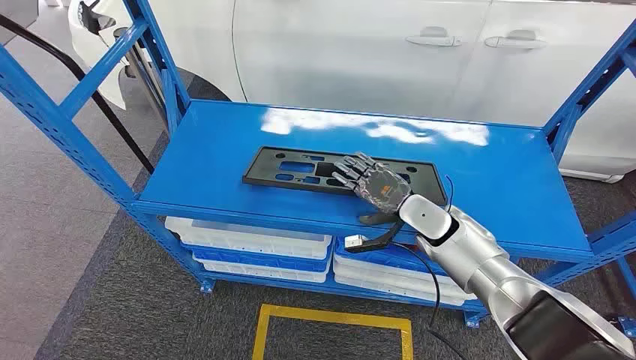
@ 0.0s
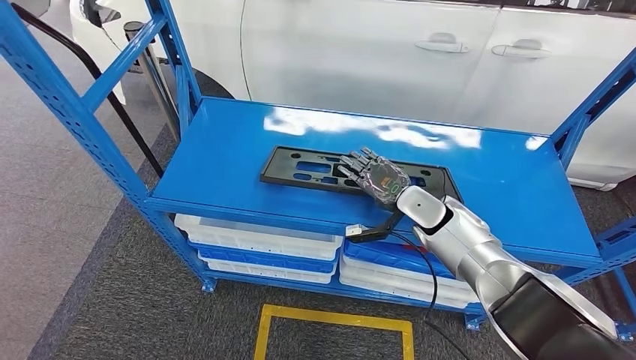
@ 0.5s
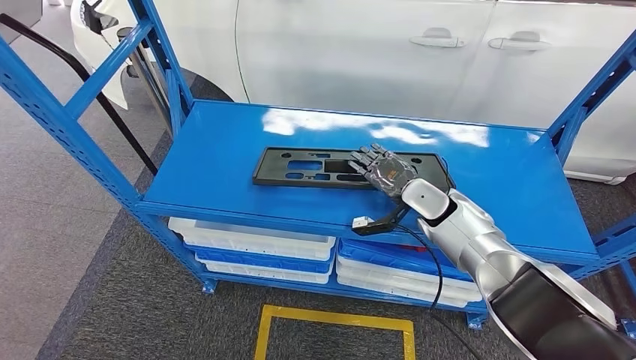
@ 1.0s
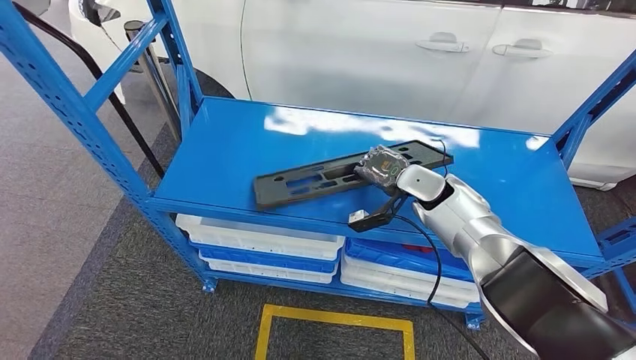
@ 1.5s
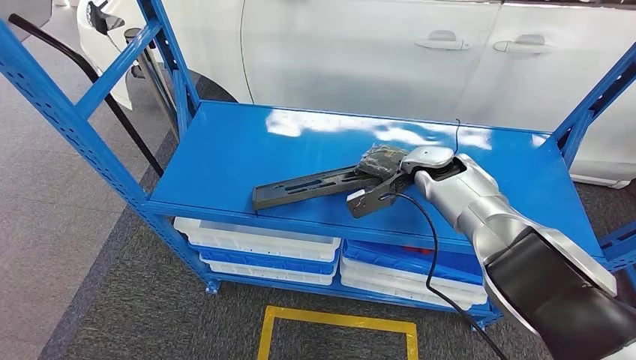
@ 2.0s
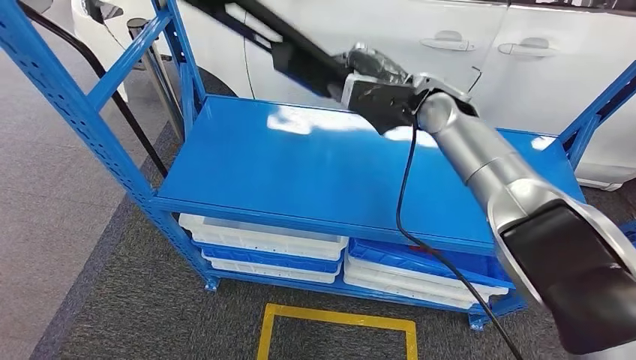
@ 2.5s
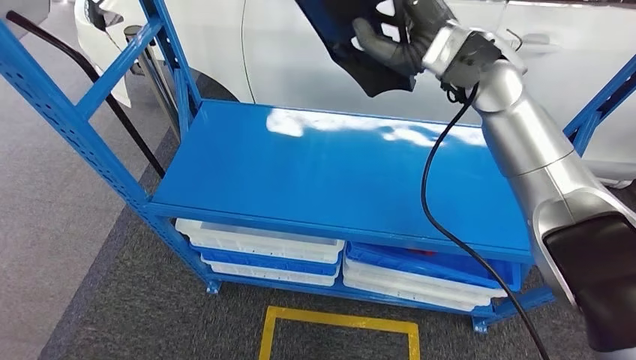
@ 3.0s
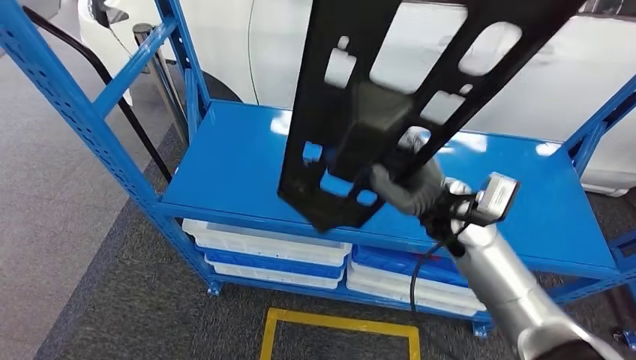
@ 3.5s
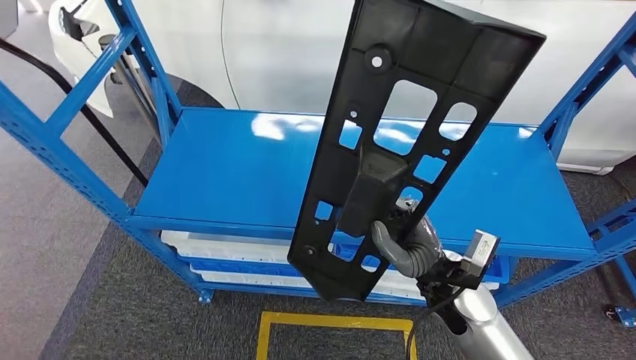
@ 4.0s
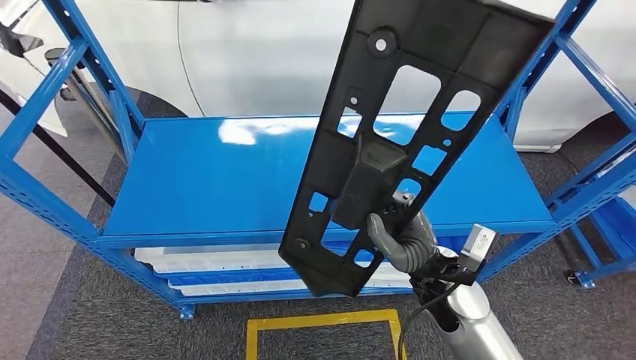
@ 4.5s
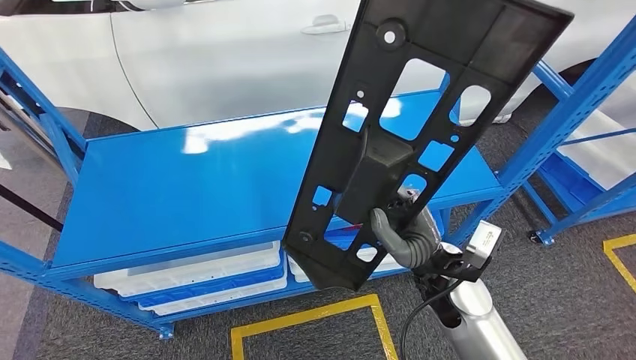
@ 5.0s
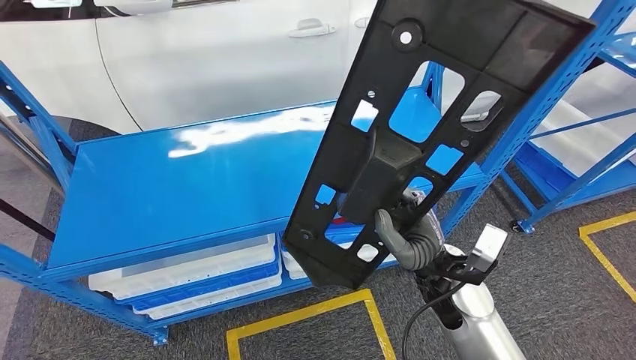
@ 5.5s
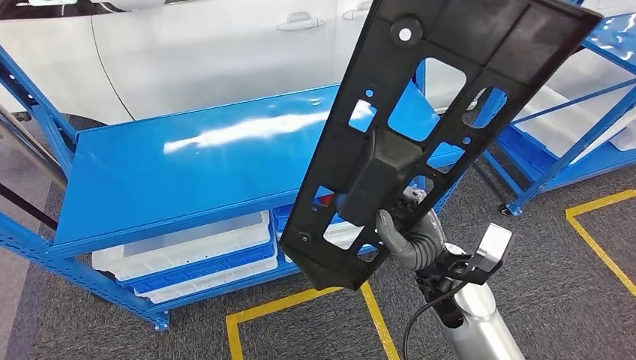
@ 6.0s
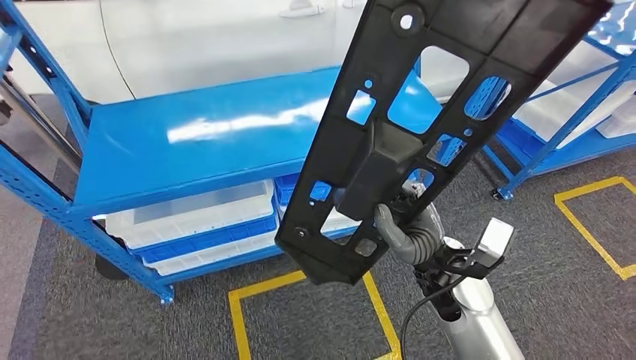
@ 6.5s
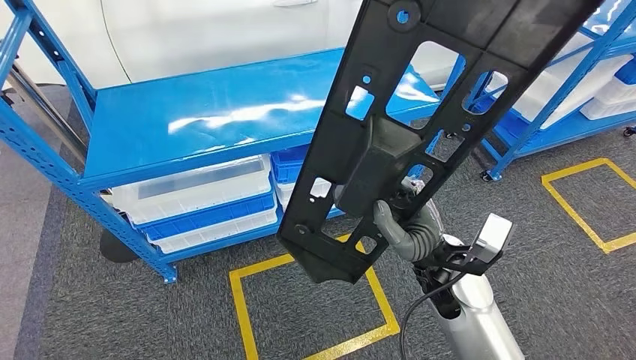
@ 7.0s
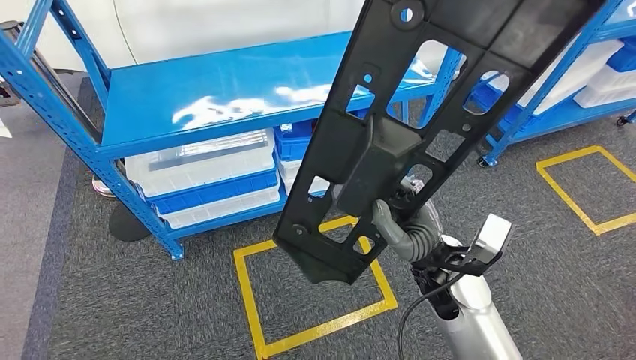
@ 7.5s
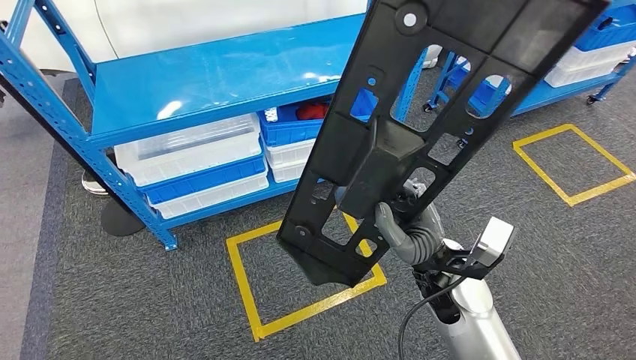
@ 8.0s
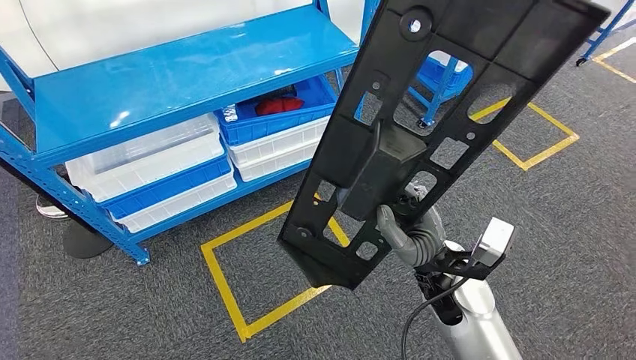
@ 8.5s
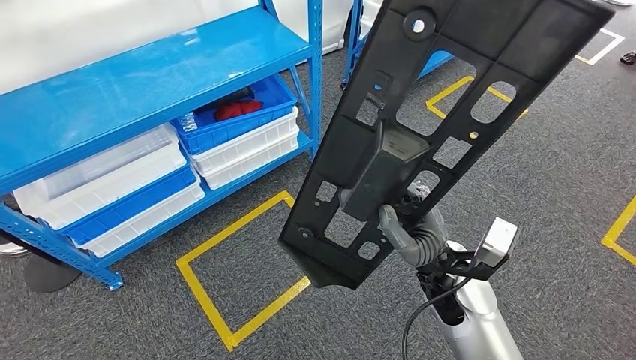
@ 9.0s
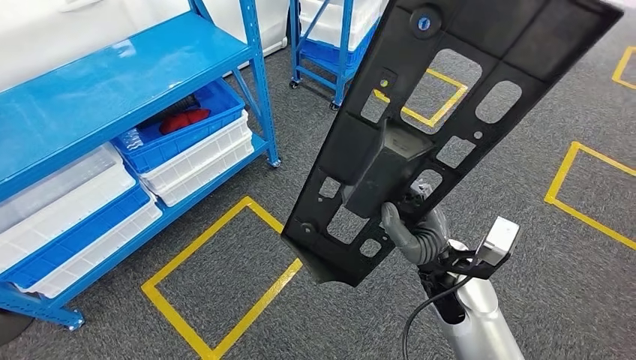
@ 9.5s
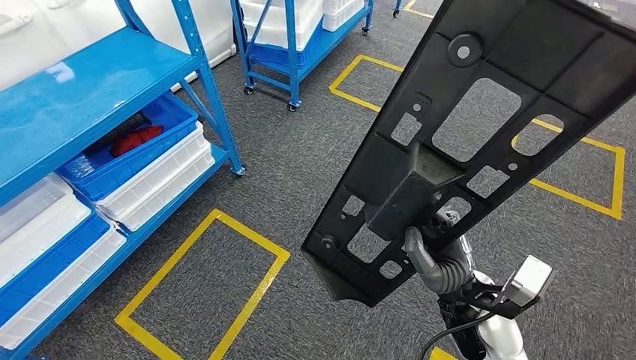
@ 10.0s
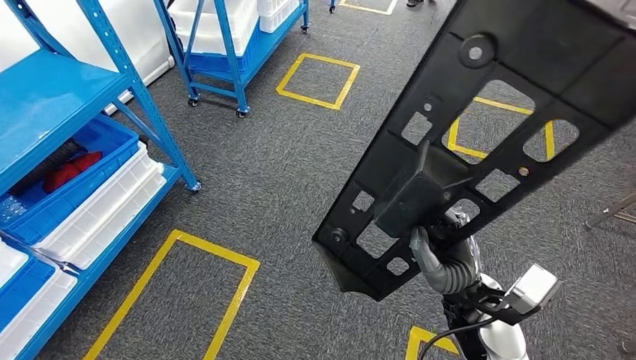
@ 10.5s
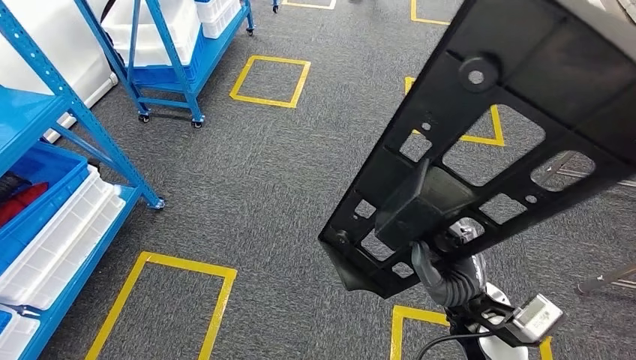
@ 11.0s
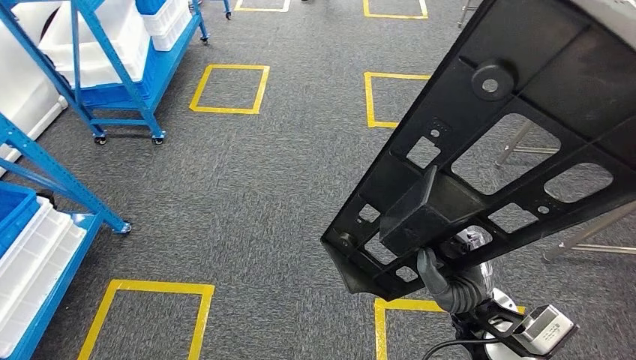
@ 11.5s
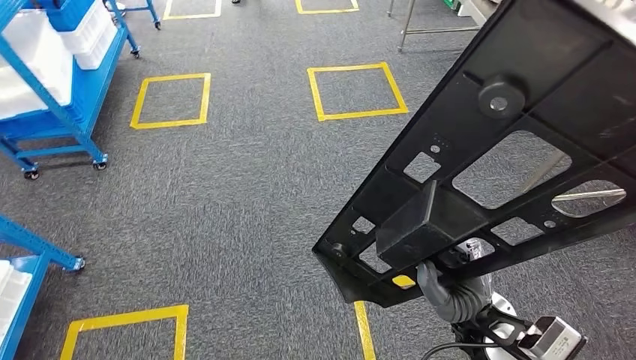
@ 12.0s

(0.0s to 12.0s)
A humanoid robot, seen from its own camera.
Step, 0.0s - 3.0s: Pick up the large material from the shelf.

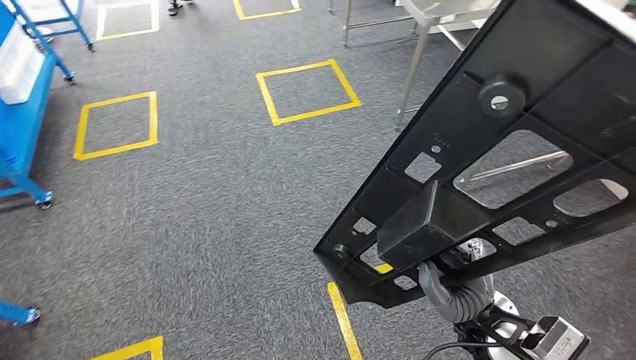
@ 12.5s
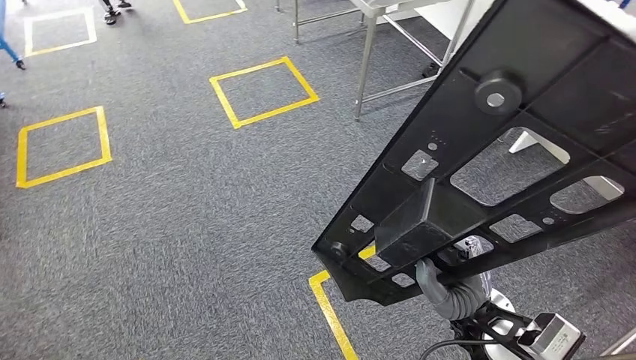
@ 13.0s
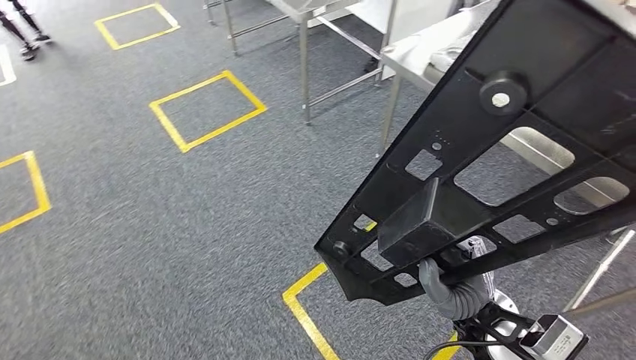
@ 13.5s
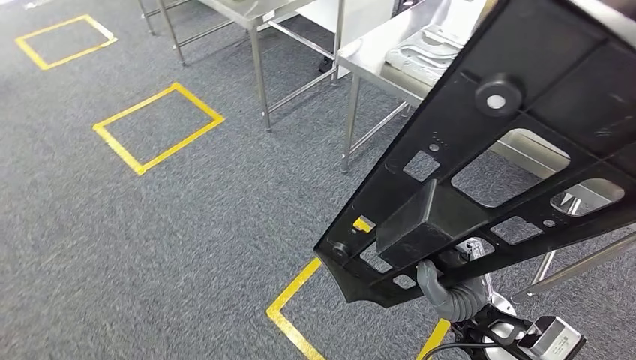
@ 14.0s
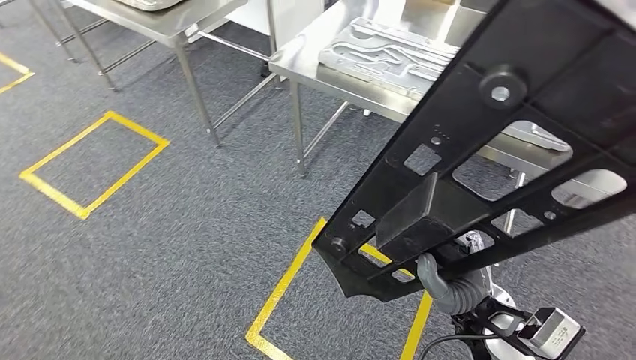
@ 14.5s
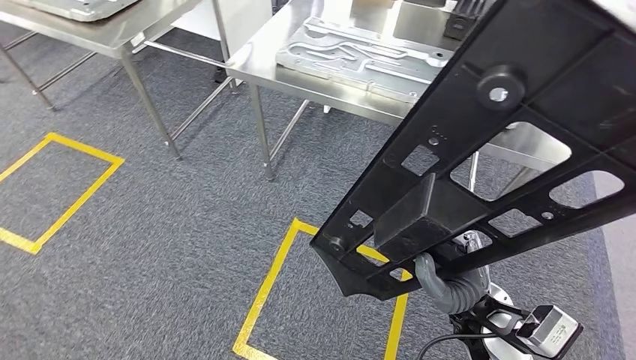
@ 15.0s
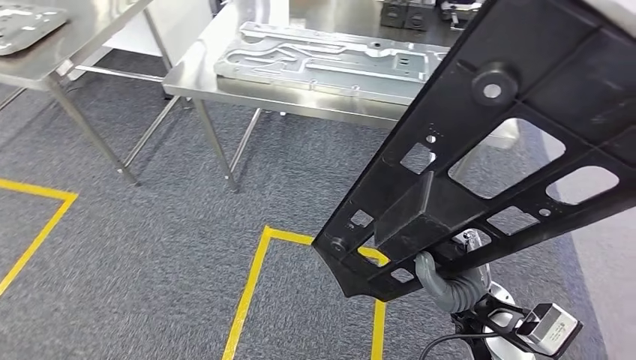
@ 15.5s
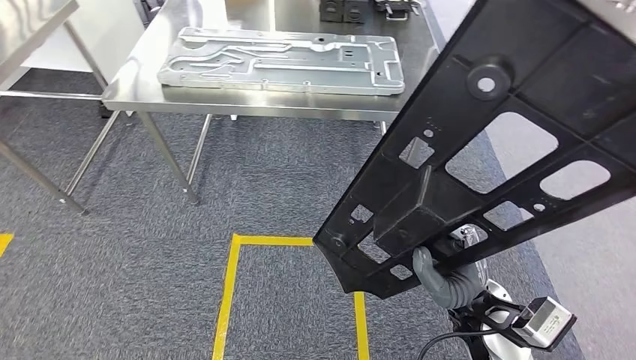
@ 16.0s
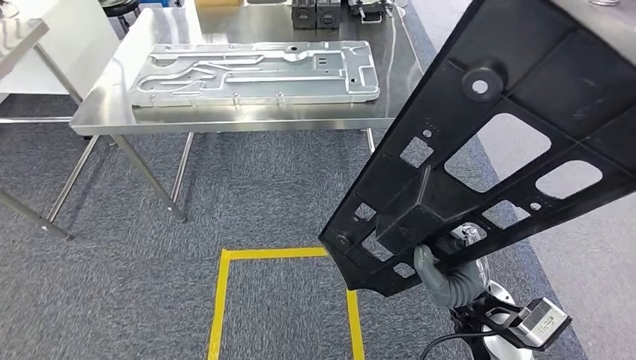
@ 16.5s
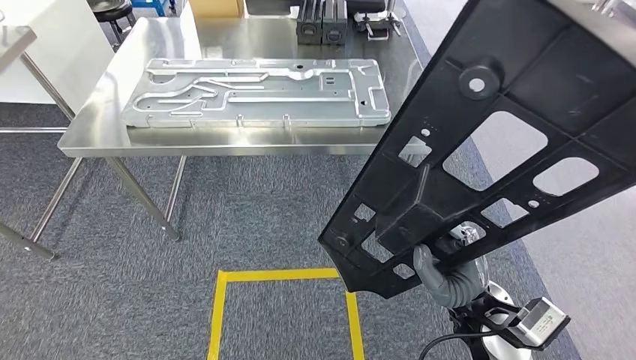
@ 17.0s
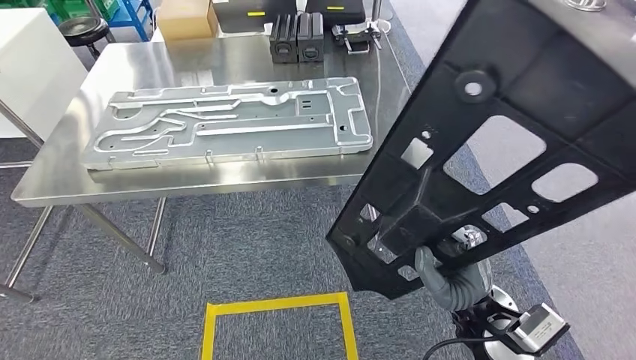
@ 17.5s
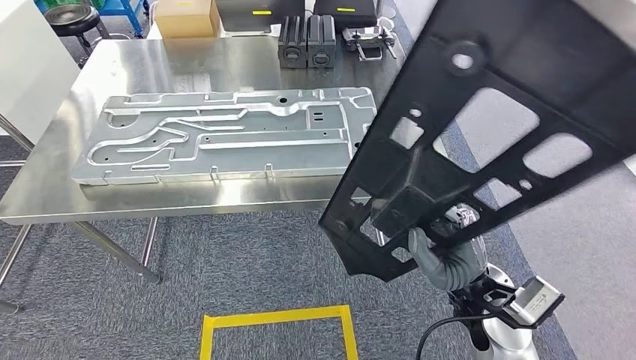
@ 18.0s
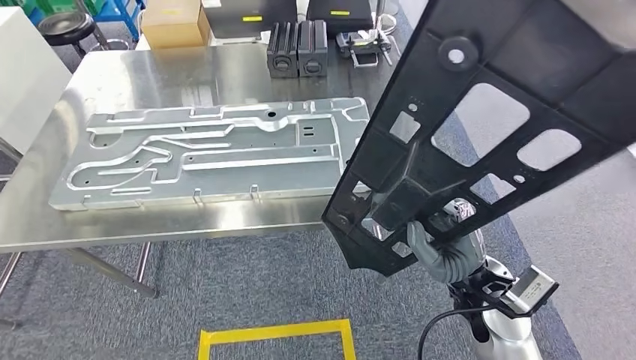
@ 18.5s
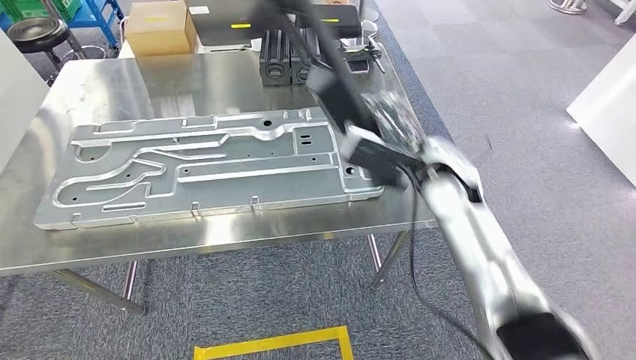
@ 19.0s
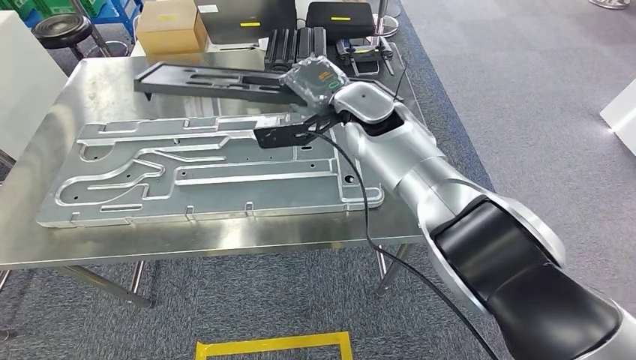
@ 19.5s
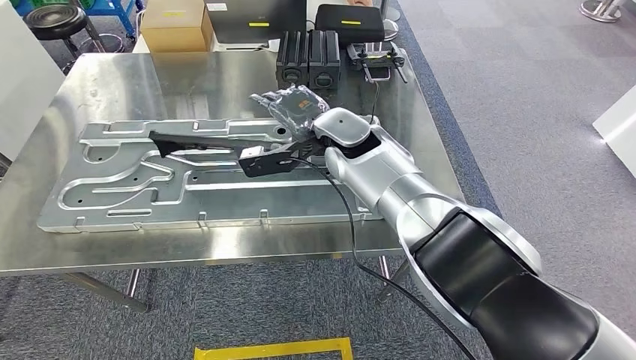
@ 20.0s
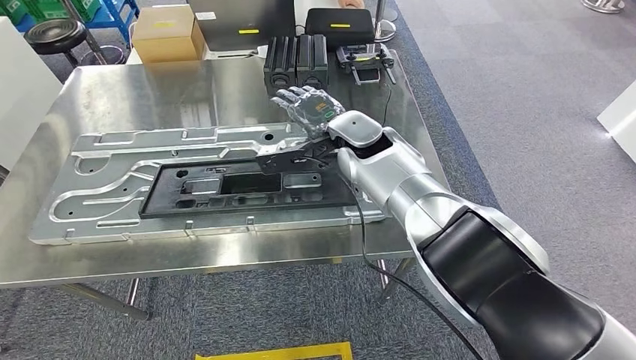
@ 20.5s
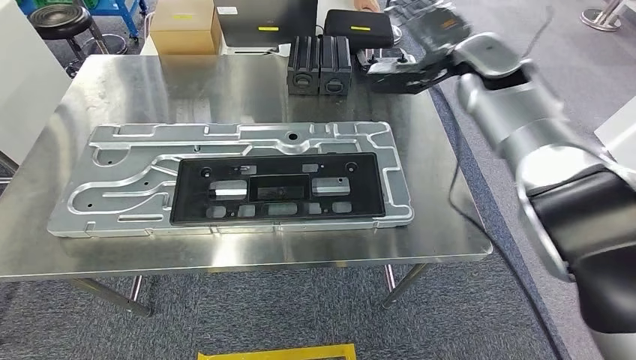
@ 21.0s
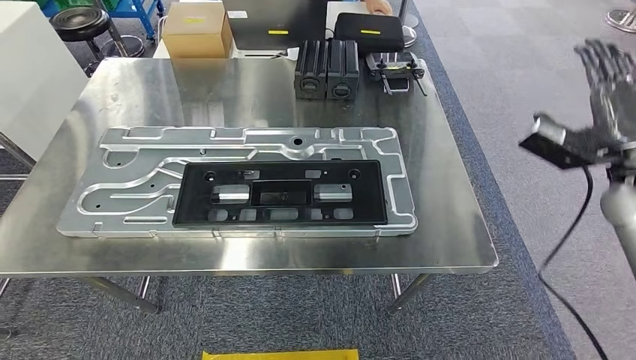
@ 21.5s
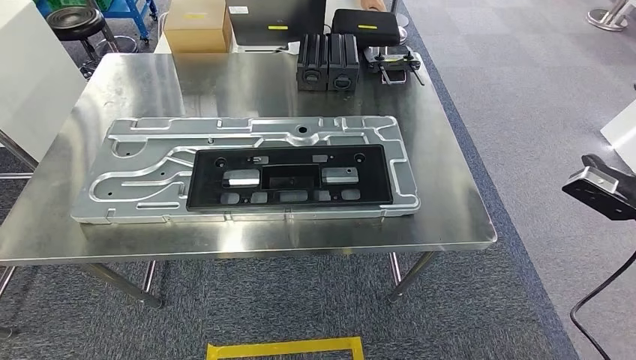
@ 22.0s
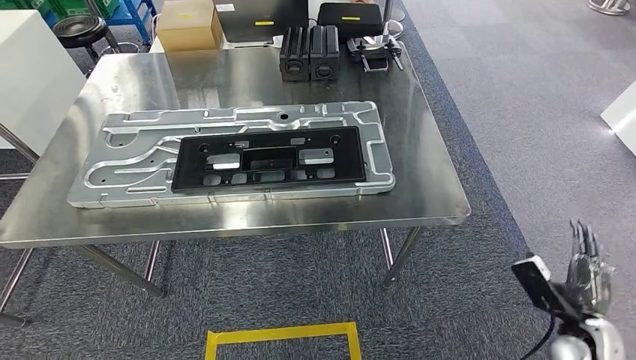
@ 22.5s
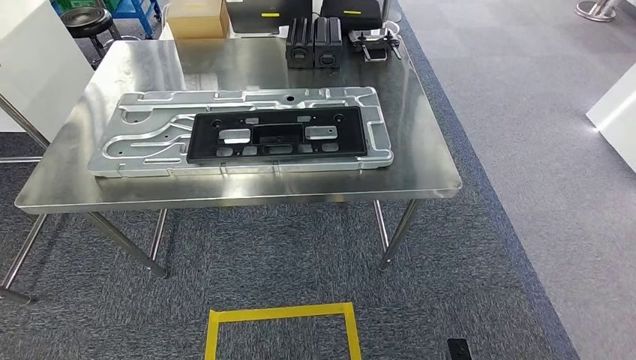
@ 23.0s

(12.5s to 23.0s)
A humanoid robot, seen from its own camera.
Step, 12.5s - 20.0s: Move the large material to the workbench.
Step, 20.5s - 22.0s: Insert the large material into the corresponding slot on the workbench.
